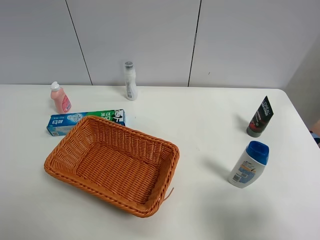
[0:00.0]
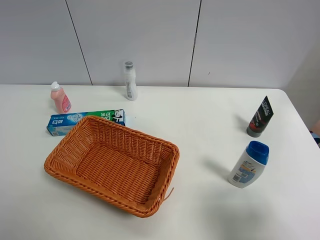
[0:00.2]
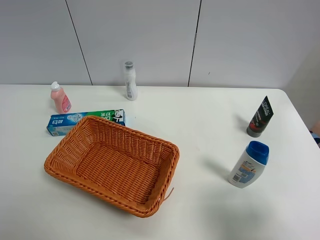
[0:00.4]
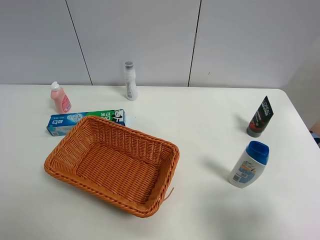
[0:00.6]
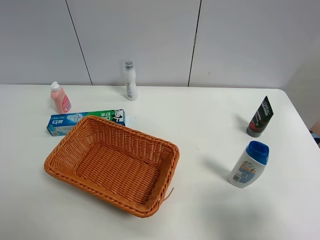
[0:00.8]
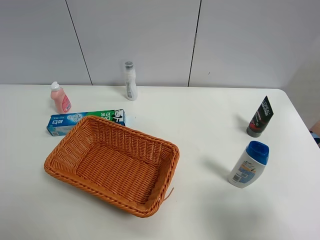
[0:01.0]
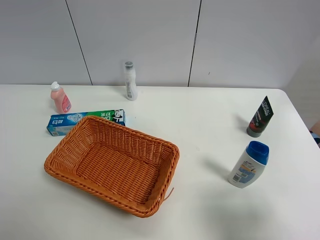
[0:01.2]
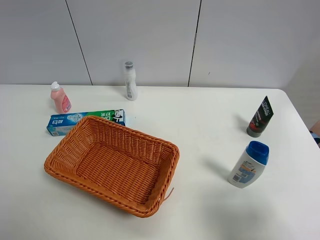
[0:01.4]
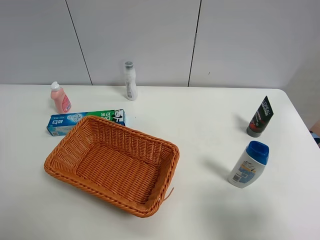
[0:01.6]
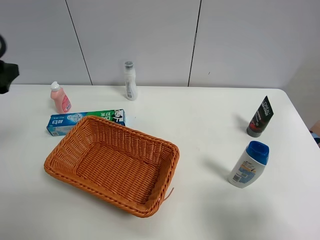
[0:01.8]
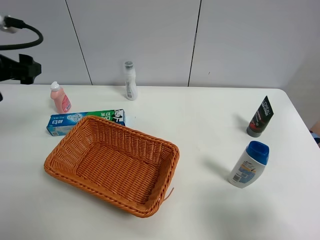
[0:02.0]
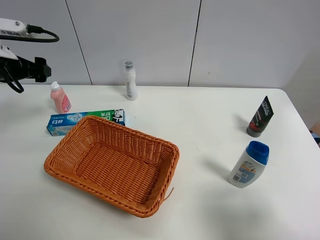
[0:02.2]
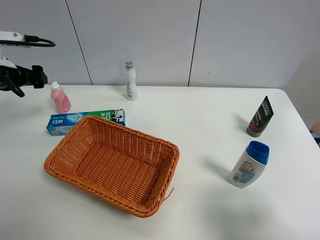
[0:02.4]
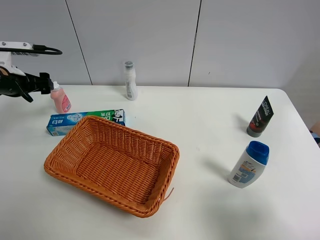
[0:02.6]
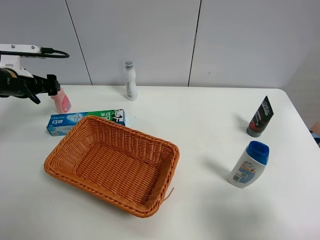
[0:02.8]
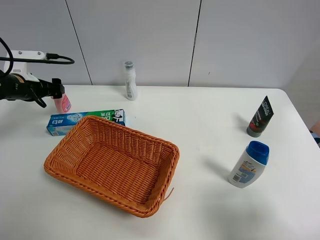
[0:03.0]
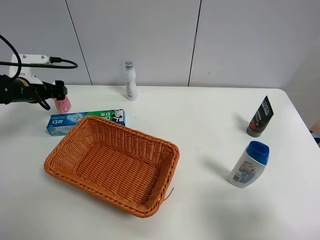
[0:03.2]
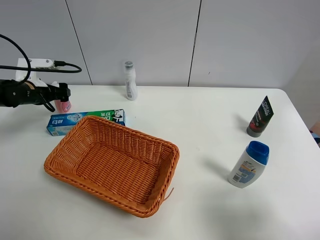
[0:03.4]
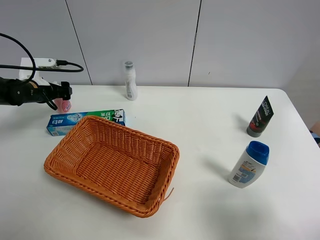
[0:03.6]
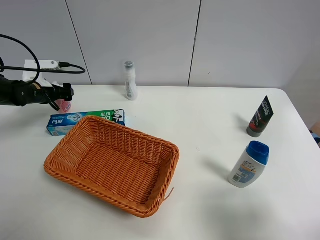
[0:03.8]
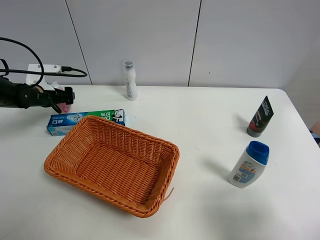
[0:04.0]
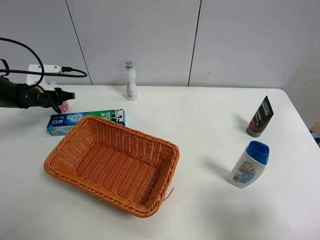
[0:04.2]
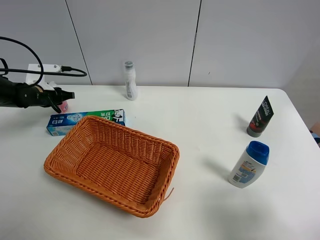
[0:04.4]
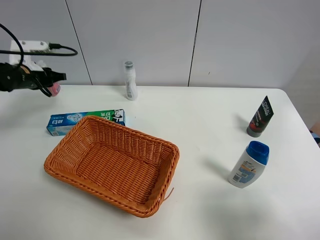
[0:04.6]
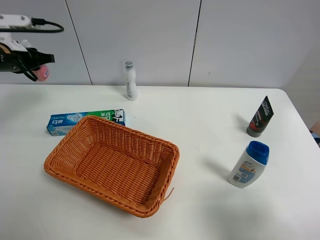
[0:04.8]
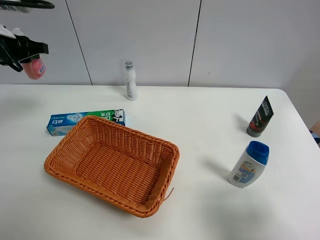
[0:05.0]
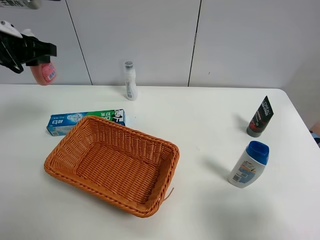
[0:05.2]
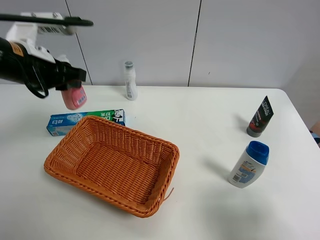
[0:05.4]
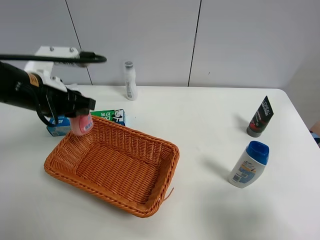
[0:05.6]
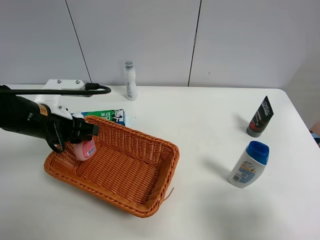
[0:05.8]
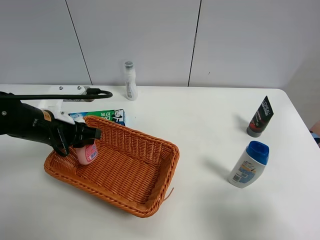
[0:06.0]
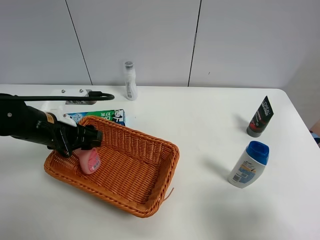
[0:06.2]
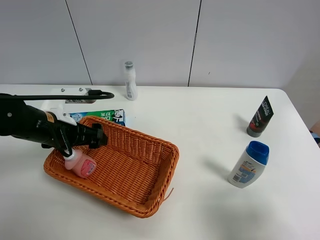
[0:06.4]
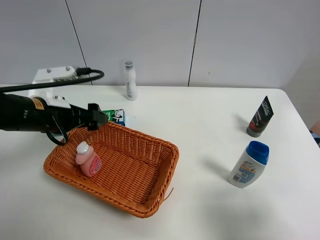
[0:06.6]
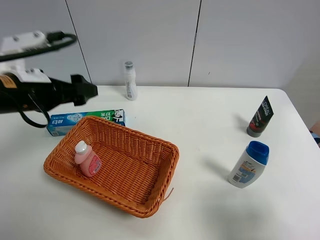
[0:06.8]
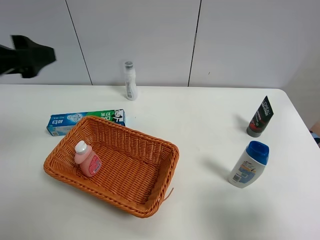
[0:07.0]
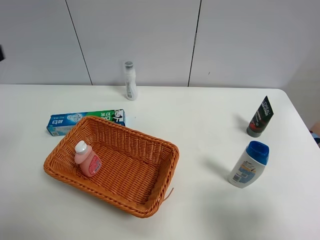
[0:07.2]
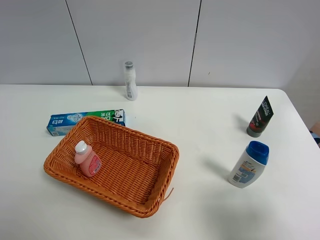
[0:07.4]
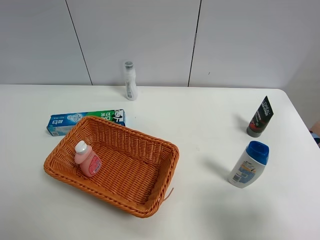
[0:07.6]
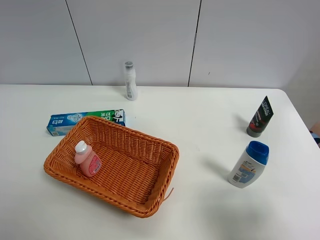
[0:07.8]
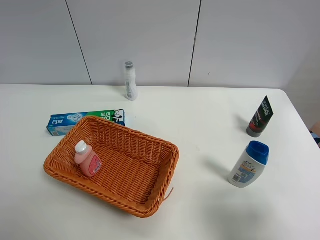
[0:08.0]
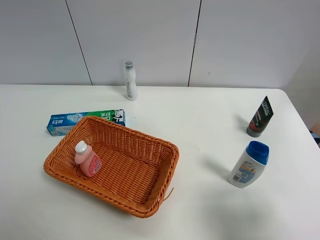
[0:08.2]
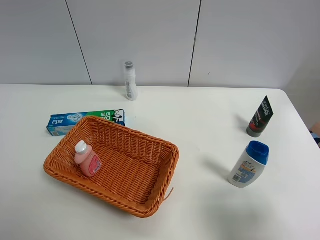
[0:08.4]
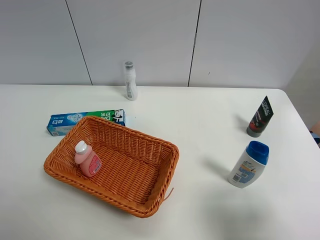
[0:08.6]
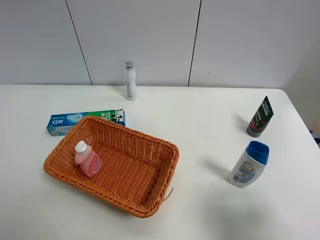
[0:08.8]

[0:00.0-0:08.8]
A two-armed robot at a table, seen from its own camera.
Task of the whole recording: Place the object closest to the toothpaste in the basket.
Step, 0:00.0 to 0:04.2: Grasp the pink laundry detergent with left gripper.
Step, 0:04.4 to 0:06.4: Place the pink laundry detergent in the basket with left gripper.
0:01.4 to 0:03.0: The left gripper goes about 35 cm forward and downward.
0:03.0 to 0:04.4: The left gripper changes place by some 5 cm, and closes its fingers.
0:04.4 to 0:05.8: The left gripper shifts approximately 25 cm backward, to the right and upward.
0:05.8 to 0:07.4: The left gripper shifts some 30 cm backward, upward and to the left, and opens up.

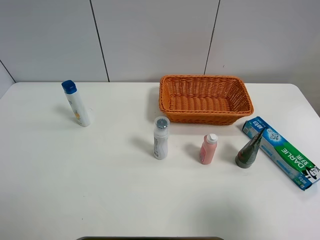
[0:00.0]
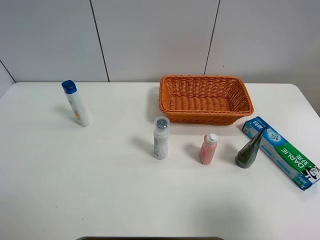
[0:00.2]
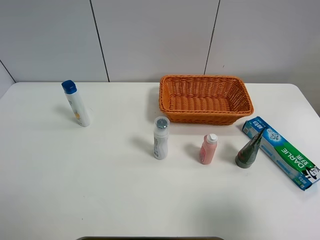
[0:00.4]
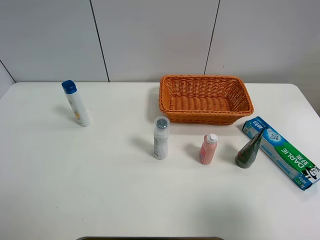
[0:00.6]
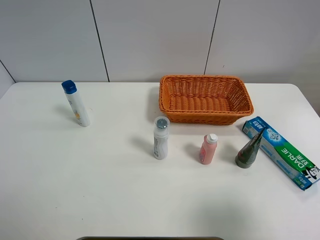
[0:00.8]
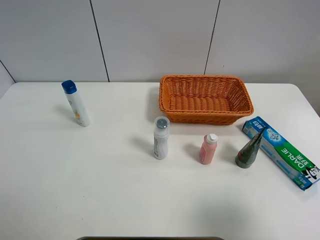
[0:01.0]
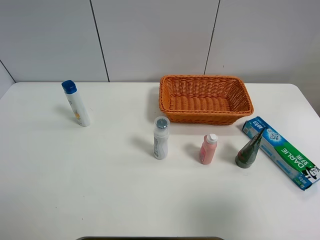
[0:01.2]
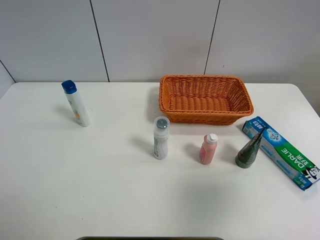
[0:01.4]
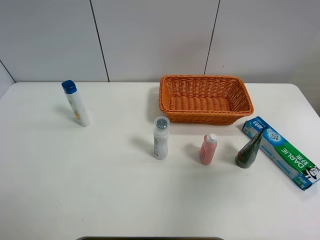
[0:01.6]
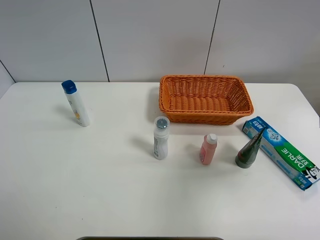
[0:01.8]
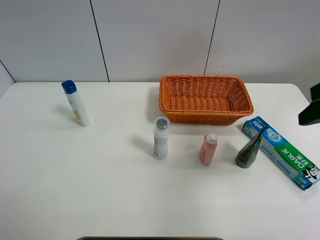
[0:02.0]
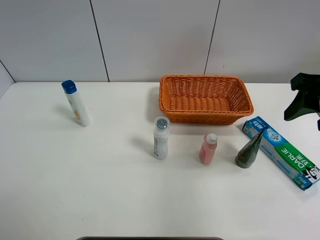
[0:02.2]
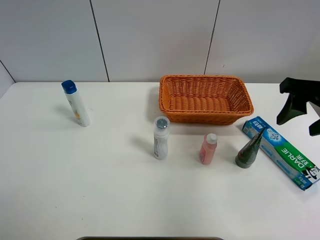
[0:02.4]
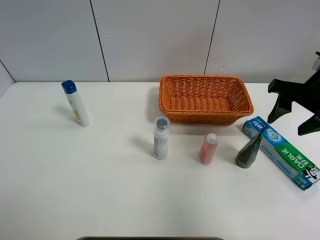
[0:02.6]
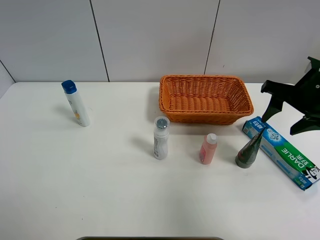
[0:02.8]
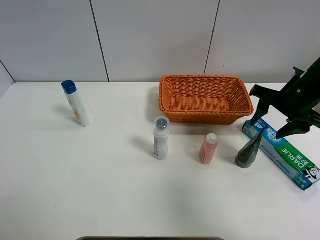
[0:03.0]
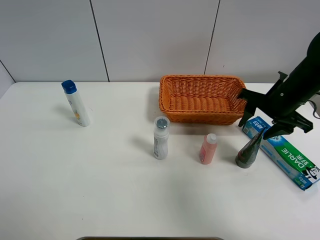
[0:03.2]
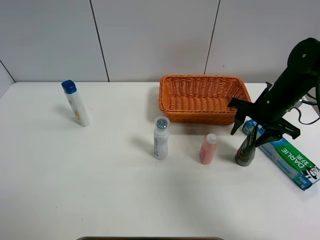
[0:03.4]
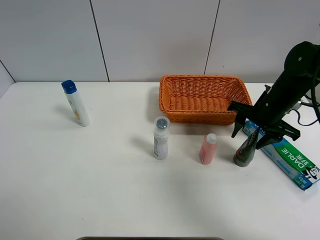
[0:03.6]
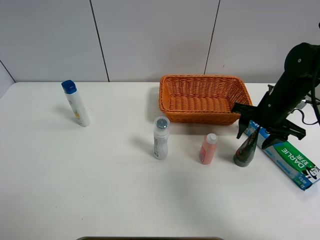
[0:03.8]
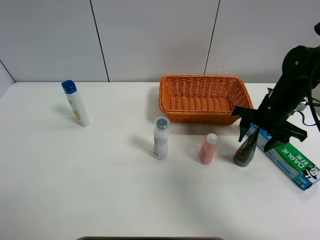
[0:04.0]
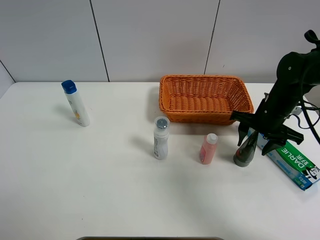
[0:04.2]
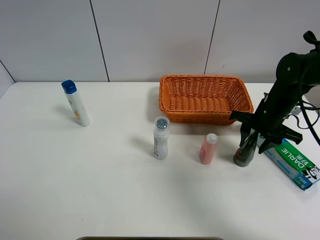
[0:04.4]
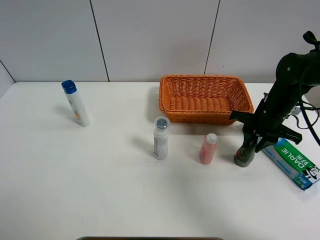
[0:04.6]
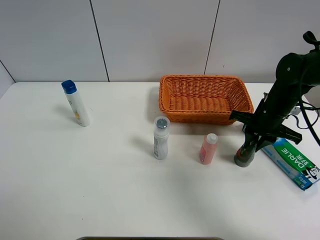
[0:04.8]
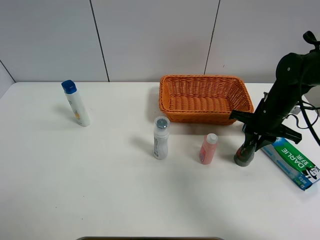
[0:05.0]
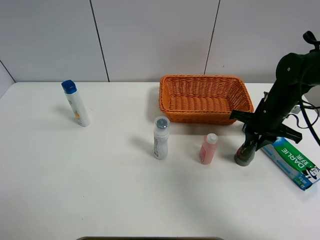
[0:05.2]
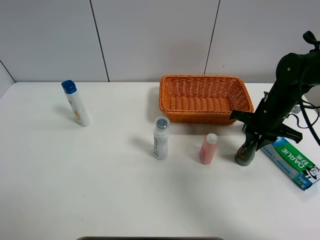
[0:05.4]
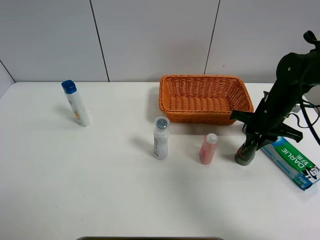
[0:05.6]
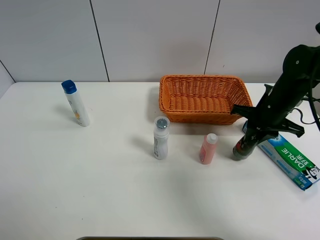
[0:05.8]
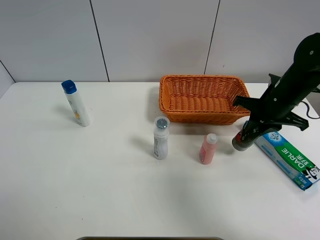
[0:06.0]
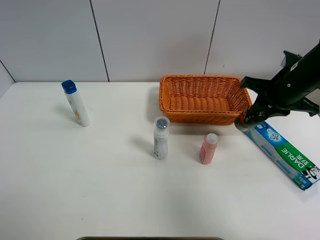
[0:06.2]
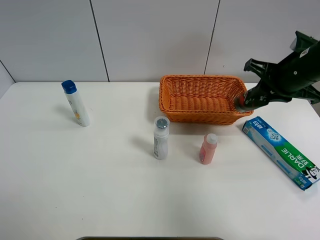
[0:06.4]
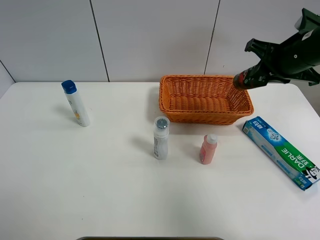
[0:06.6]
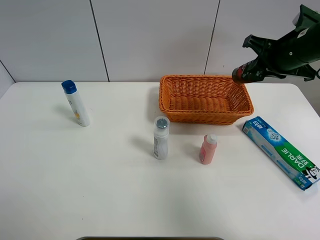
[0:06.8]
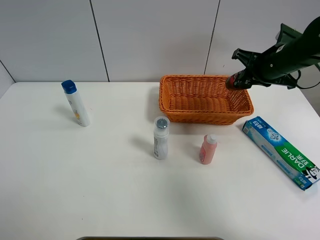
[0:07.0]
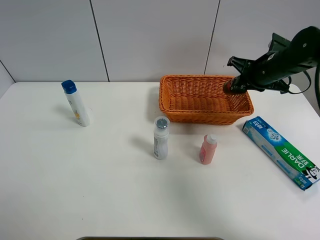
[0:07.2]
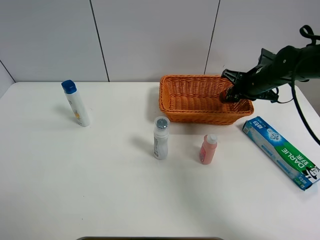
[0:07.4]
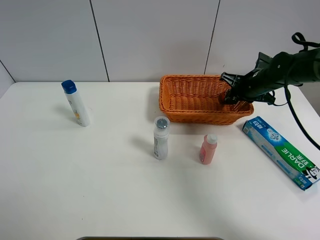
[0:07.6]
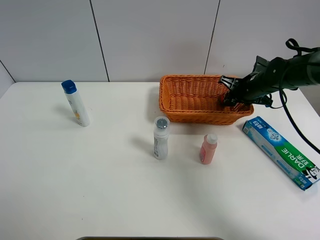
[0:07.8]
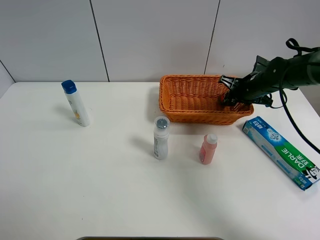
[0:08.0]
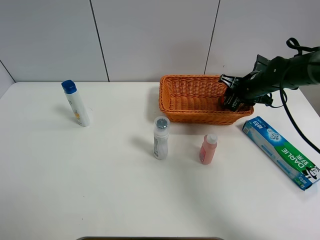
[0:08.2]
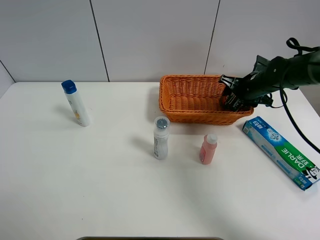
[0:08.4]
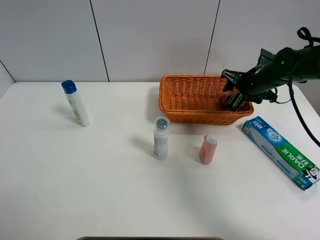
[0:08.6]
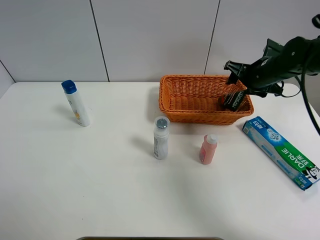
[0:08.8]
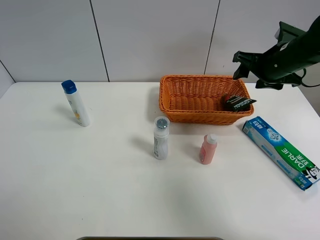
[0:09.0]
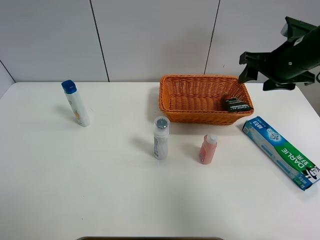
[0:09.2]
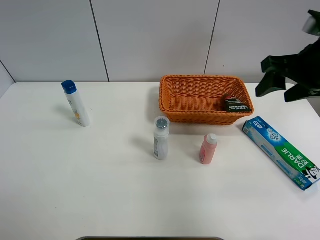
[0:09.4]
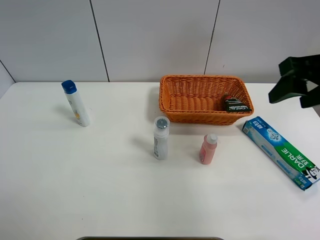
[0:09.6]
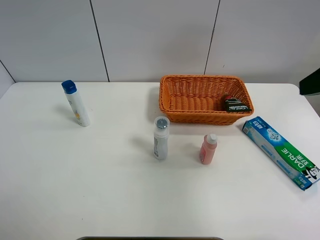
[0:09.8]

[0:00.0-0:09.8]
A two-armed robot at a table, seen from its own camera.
Task of the whole recording: Place the object closest to the toothpaste in the basket.
Step, 0:00.0 to 0:04.8: Grasp the soft facial cleanser with right gripper.
Step, 0:05.0 to 0:09.0: Place the soft facial cleanser in the basket with right gripper.
0:00.0 to 0:01.4: The right gripper is displaced upward by about 10 cm.
0:01.4 to 0:02.8: The right gripper moves forward and downward, about 25 cm.
0:02.8 to 0:04.2: The right gripper moves downward, roughly 10 cm.
0:04.2 to 0:05.6: The right gripper closes up.
0:05.6 to 0:07.0: The right gripper moves upward, some 10 cm.
0:07.0 to 0:08.4: The right gripper travels downward by about 10 cm, and opens up.
0:08.4 to 0:09.8: The right gripper is displaced backward and upward by some 35 cm.

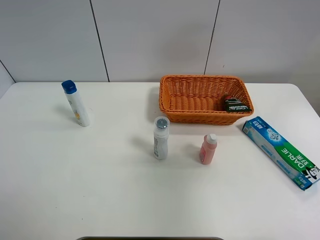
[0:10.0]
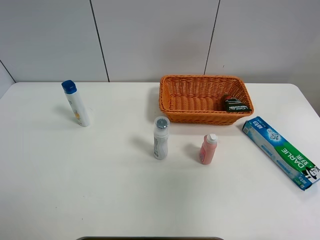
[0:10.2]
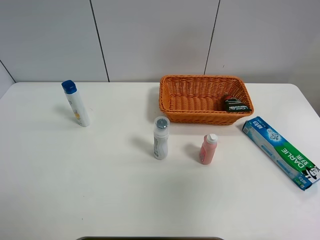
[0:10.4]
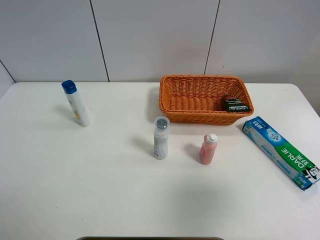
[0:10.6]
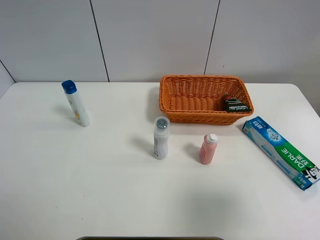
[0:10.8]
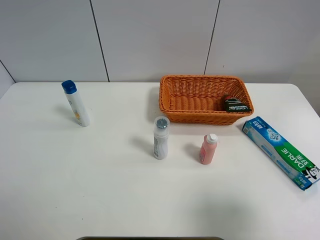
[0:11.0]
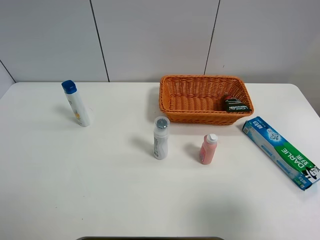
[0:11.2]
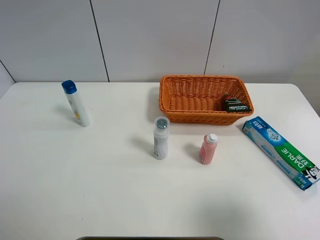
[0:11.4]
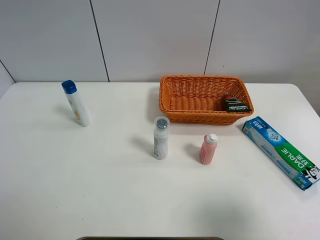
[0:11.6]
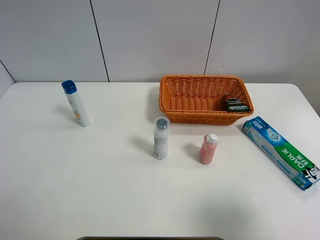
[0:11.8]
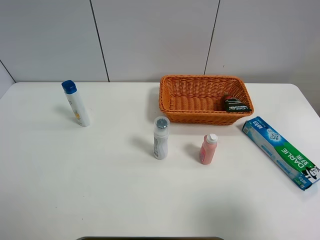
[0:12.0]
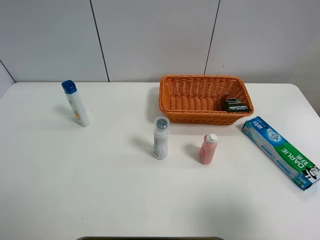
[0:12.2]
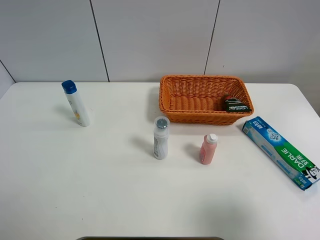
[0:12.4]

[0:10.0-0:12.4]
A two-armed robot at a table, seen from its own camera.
Task of the whole recording: Place the object closest to the toothpaste in the basket.
0:10.0 to 0:11.2: The right gripper travels downward and backward by some 15 cm.
0:11.2 to 0:12.4: Both grippers stay about where they are.
